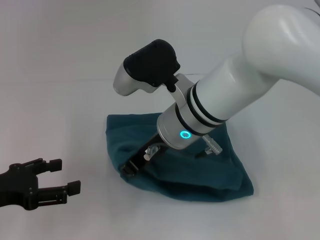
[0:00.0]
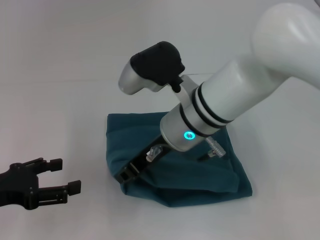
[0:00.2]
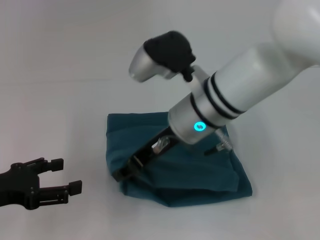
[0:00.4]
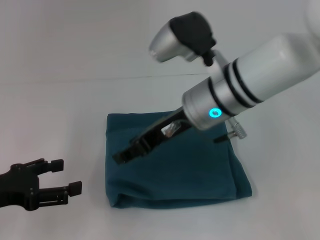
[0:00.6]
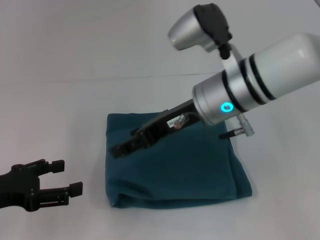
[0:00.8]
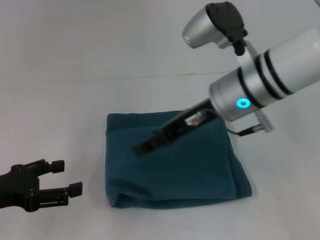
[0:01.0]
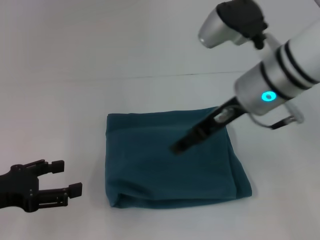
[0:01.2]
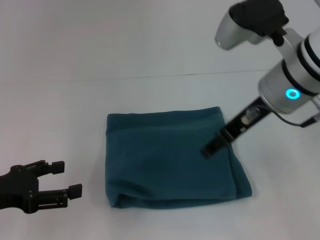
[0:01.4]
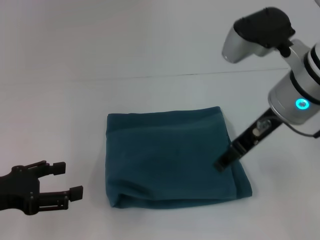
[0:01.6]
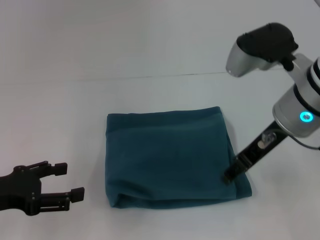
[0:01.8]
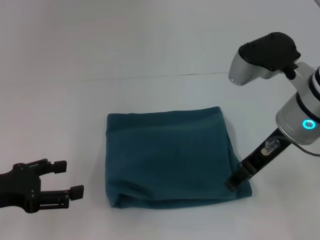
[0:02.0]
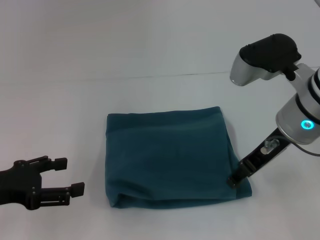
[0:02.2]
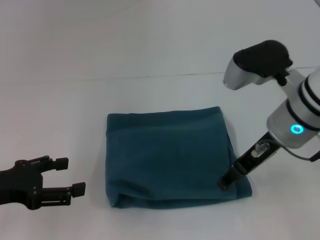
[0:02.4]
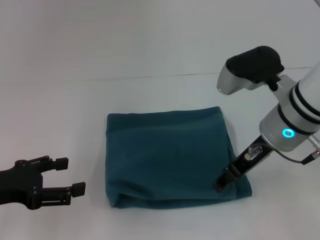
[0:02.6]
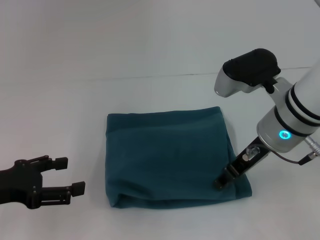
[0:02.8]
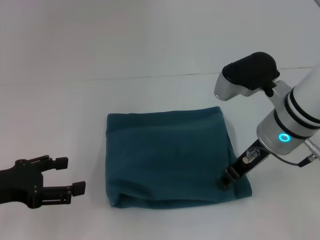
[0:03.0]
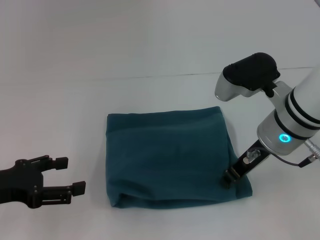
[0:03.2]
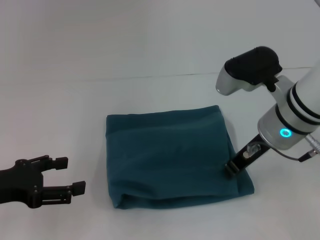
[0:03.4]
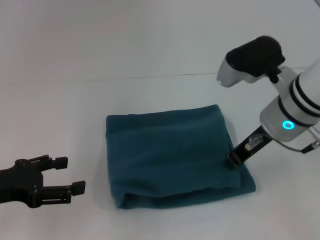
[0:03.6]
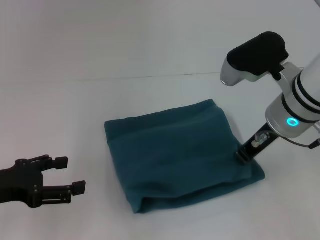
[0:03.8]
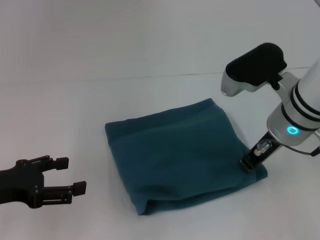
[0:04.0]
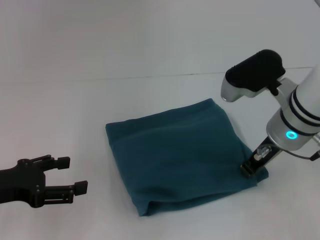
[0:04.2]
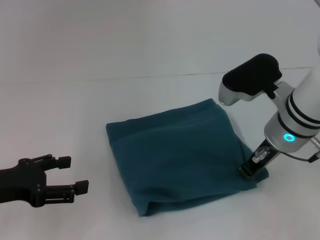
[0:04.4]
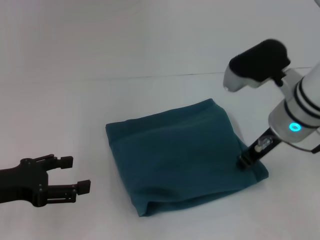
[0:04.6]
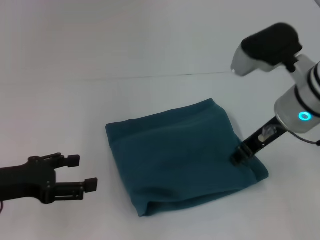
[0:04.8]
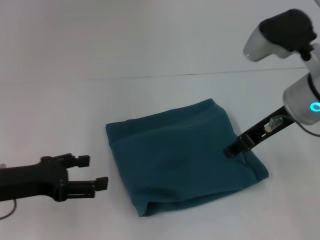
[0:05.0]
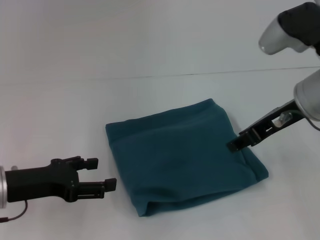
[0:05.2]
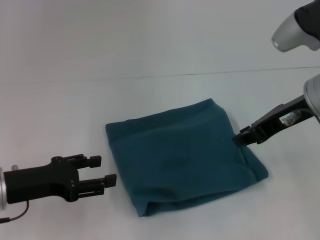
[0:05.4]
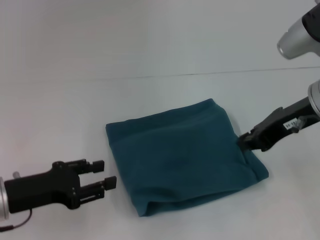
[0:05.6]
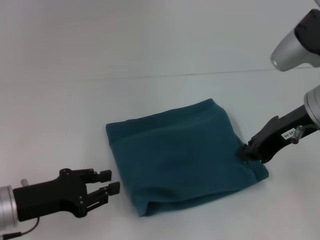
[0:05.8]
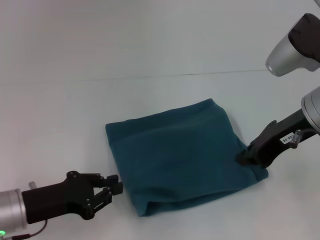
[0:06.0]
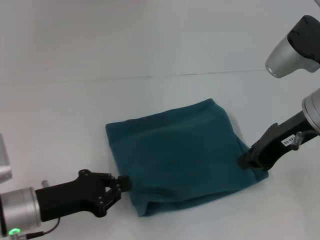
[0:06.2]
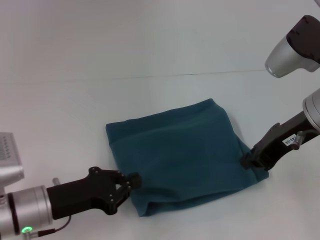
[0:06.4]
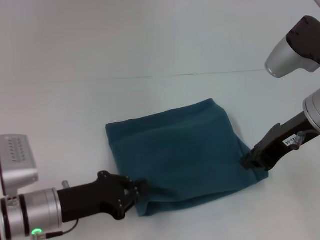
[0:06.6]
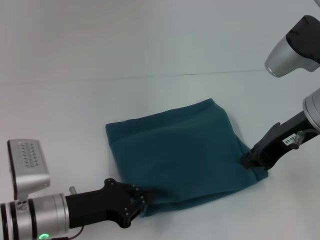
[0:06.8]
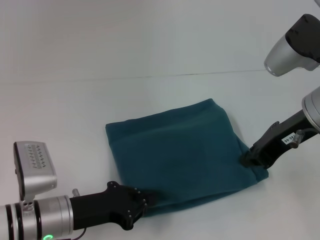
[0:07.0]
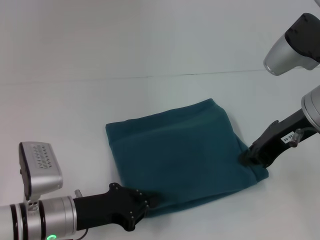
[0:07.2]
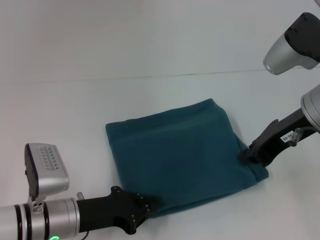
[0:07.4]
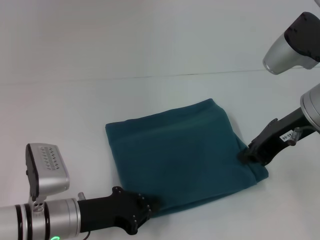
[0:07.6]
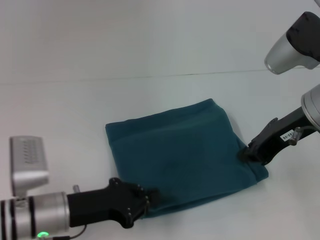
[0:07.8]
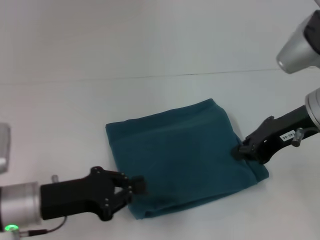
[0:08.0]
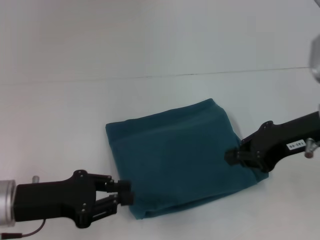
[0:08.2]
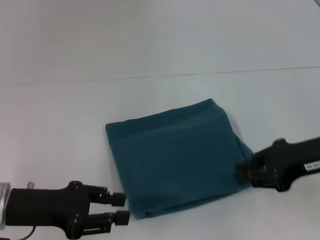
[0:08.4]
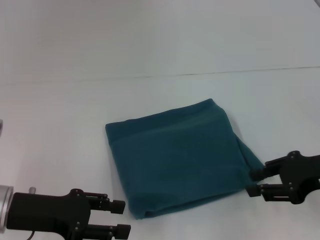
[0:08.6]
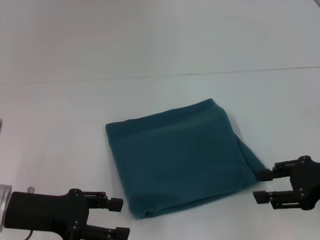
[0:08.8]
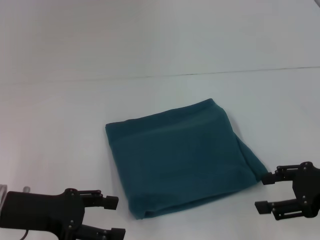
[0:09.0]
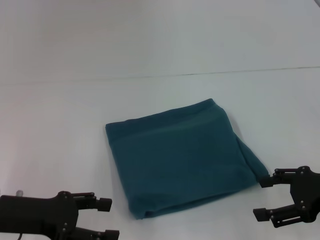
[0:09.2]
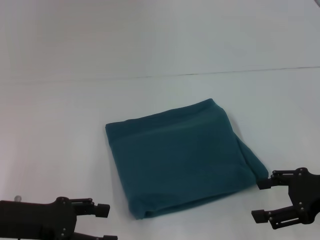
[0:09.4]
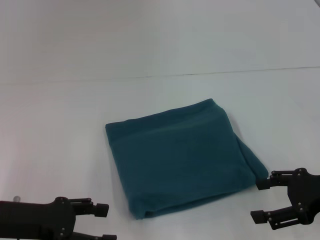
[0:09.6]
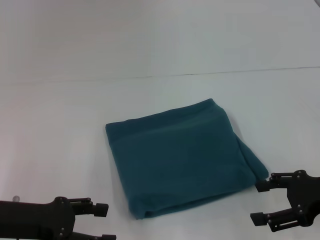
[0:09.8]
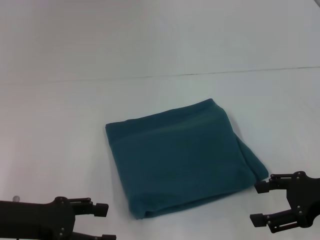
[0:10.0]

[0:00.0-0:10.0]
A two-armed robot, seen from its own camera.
0:00.0 to 0:01.4: The right gripper shifts about 15 cm to the right and upward, and opens.
0:01.4 to 0:02.8: The right gripper shifts some 5 cm downward.
0:02.8 to 0:04.2: The right gripper closes.
0:04.2 to 0:05.8: The right gripper is displaced upward by roughly 5 cm, and opens and closes again, while the left gripper goes approximately 5 cm downward, and closes its fingers.
0:05.8 to 0:07.2: The left gripper is displaced to the right by approximately 5 cm, and closes up.
0:07.2 to 0:08.6: The left gripper heads upward and to the left, covering about 10 cm; the right gripper travels to the right, downward and backward by some 10 cm.
0:08.6 to 0:10.0: The left gripper opens, while the right gripper opens.

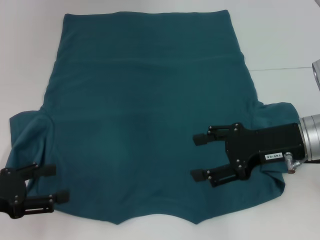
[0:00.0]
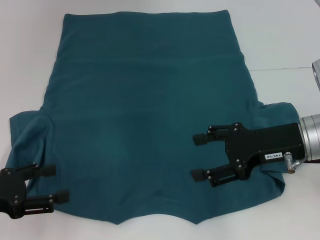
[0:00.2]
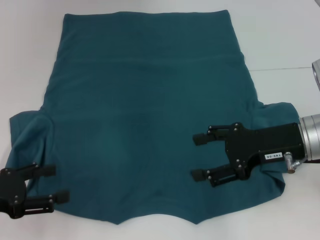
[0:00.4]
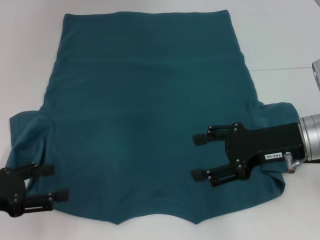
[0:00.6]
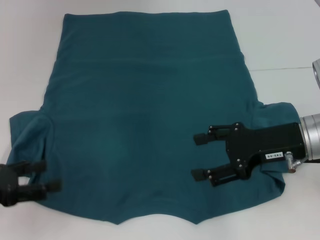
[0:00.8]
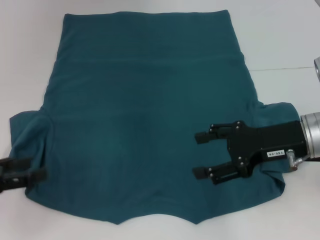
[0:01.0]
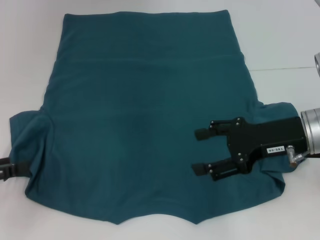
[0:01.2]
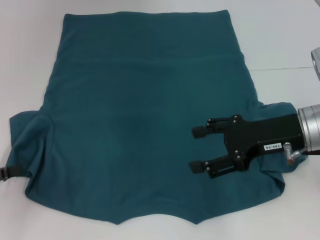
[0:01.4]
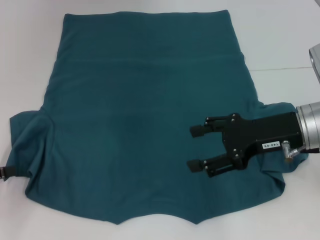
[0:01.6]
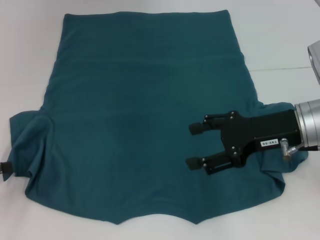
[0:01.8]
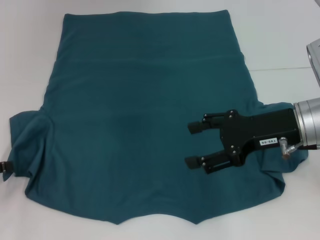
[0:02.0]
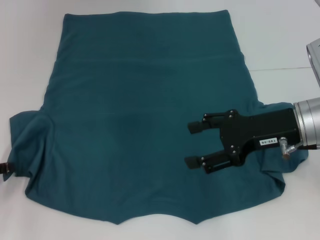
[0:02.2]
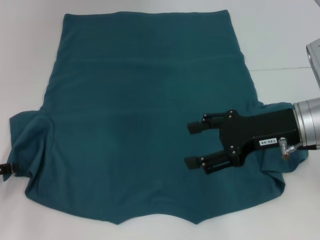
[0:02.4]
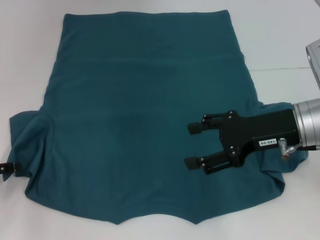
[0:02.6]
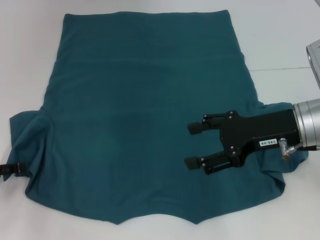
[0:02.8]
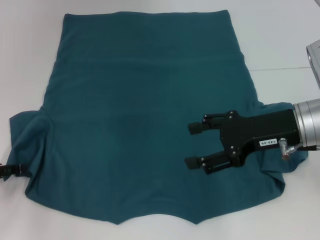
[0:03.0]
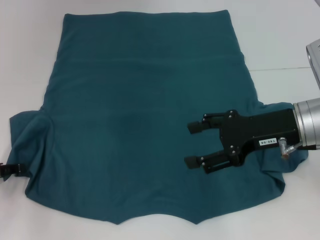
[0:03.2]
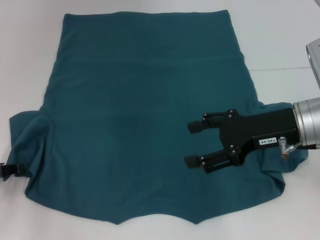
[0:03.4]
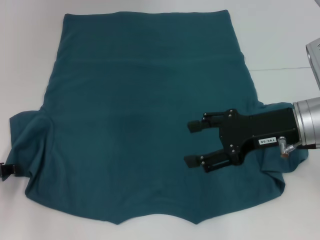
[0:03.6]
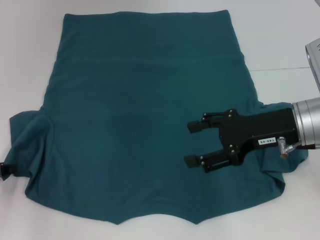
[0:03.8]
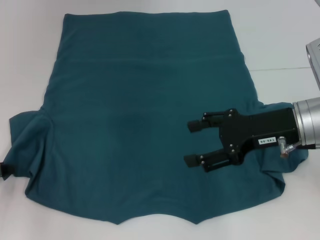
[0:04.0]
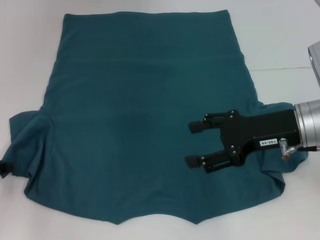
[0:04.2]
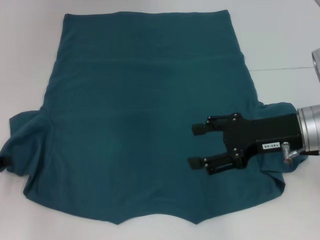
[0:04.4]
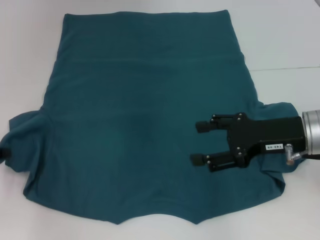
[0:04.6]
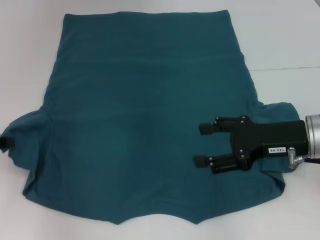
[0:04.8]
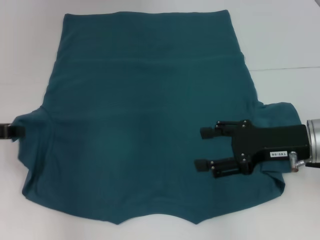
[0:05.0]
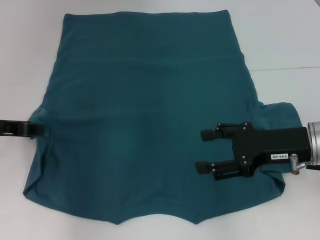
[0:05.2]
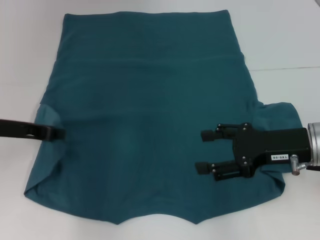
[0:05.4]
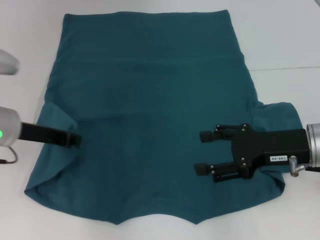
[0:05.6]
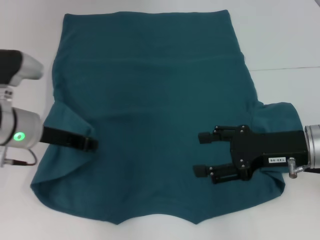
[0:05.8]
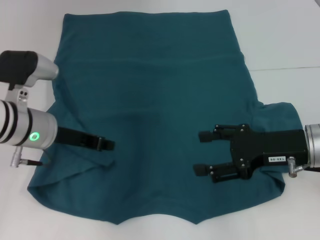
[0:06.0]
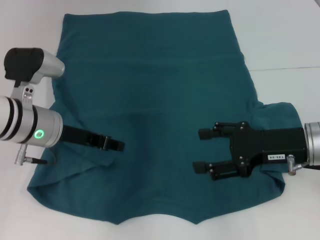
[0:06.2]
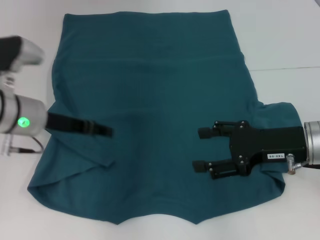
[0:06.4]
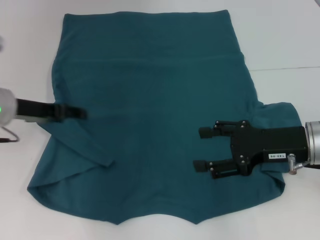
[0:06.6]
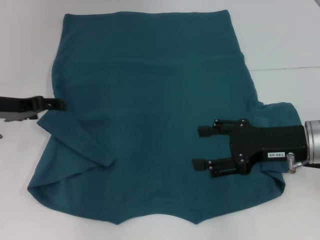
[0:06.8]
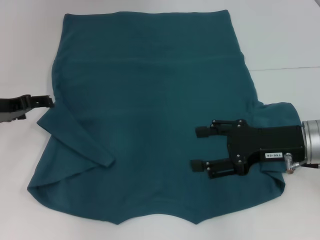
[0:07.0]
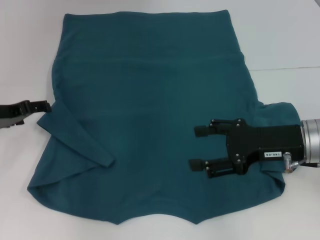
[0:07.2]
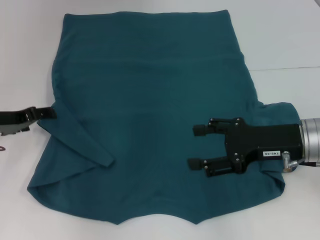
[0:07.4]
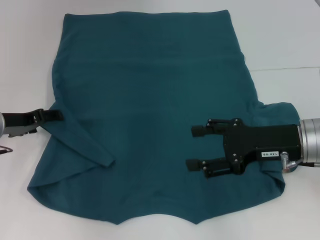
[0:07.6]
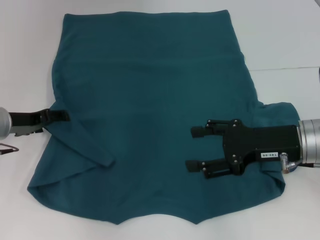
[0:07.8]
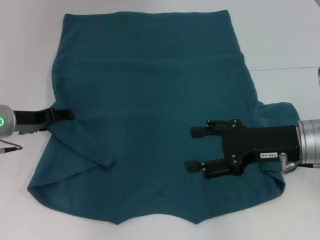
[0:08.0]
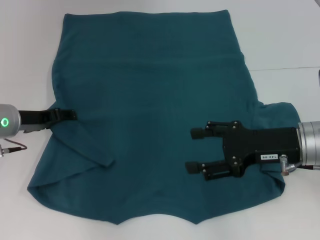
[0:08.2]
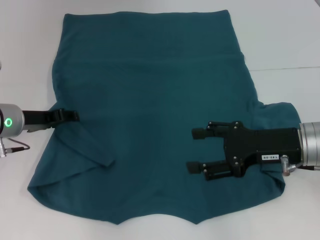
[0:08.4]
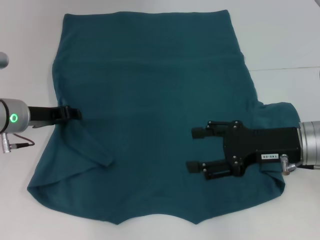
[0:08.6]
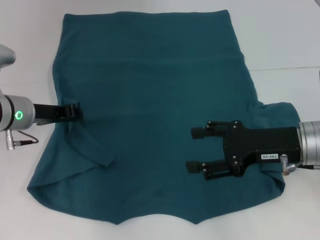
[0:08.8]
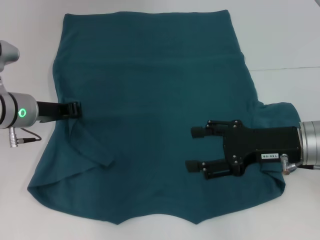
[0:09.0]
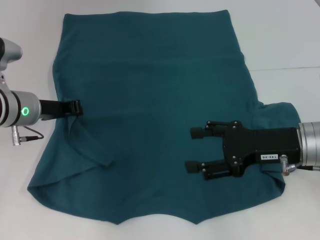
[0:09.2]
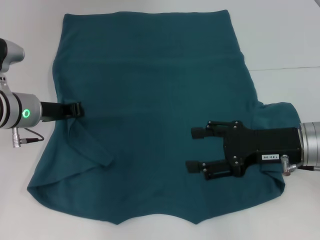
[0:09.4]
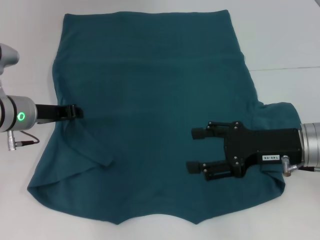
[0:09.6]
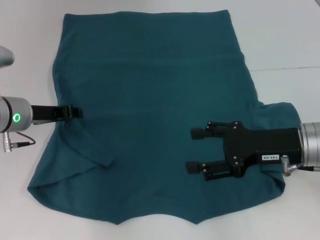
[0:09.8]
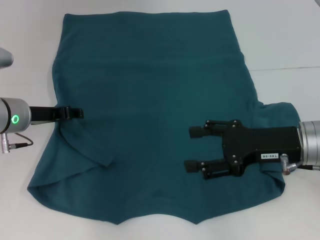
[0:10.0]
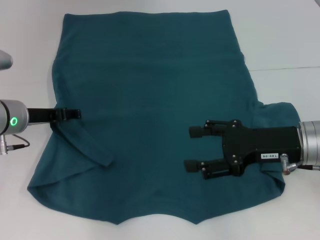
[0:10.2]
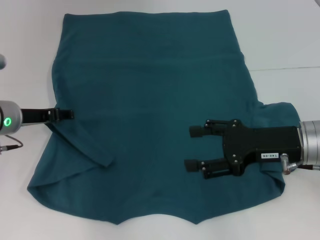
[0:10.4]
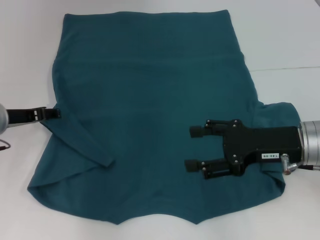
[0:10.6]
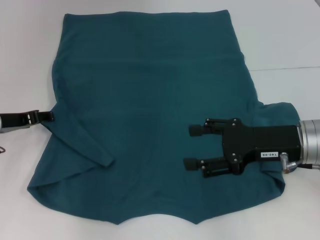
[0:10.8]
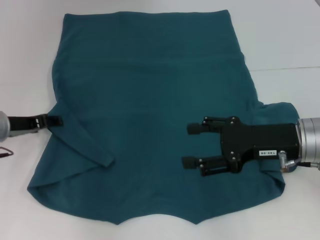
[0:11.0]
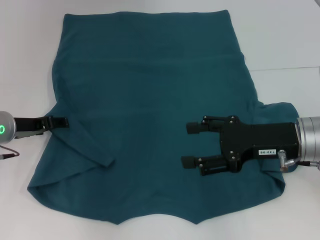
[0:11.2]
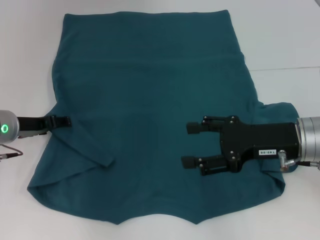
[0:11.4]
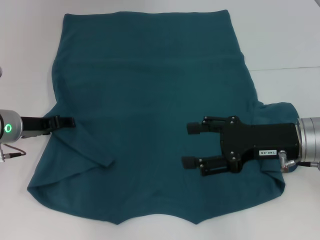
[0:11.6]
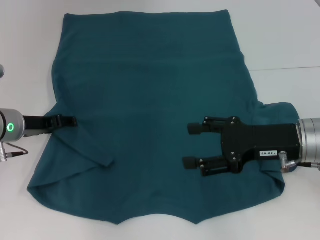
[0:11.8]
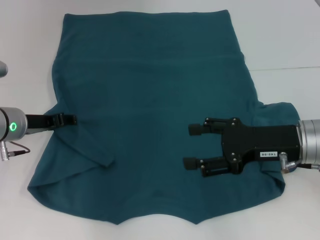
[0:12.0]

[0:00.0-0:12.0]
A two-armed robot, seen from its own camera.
0:00.0 to 0:01.6: The left gripper goes approximately 5 cm to the left.
0:03.0 to 0:04.4: The left gripper closes its fingers.
0:04.4 to 0:06.0: The left gripper goes roughly 15 cm to the right.
0:06.0 to 0:07.6: The left gripper heads to the left, covering roughly 10 cm, and opens.
0:07.6 to 0:09.0: The left gripper travels to the right by approximately 5 cm, and closes.
0:09.0 to 0:10.4: The left gripper opens its fingers.
0:10.4 to 0:12.0: The grippers stay close to where they were, moving slightly.
